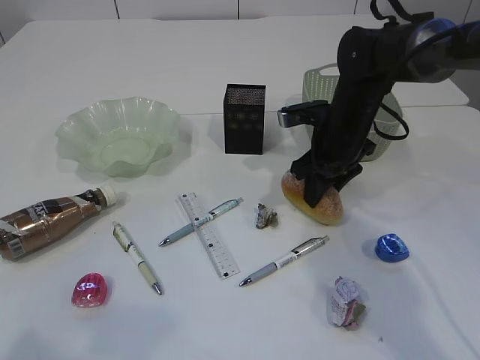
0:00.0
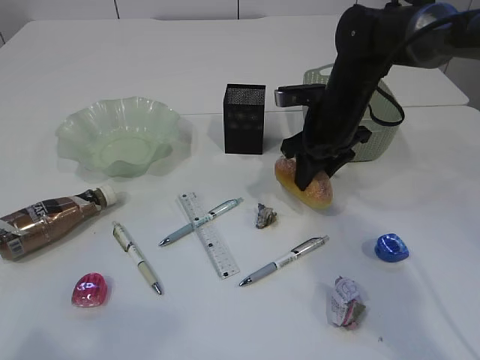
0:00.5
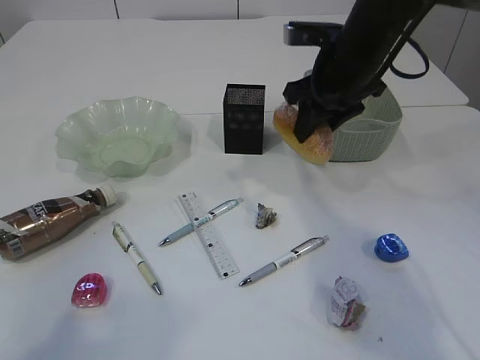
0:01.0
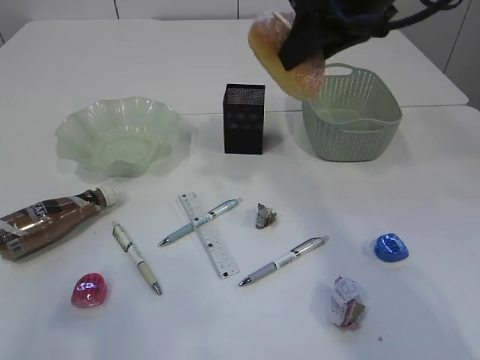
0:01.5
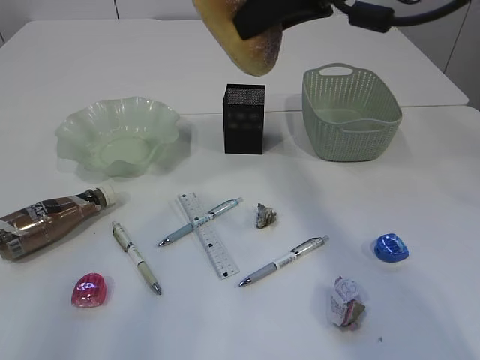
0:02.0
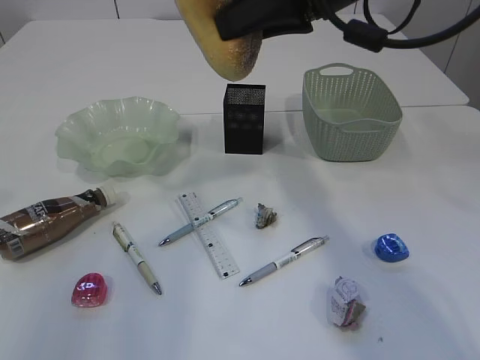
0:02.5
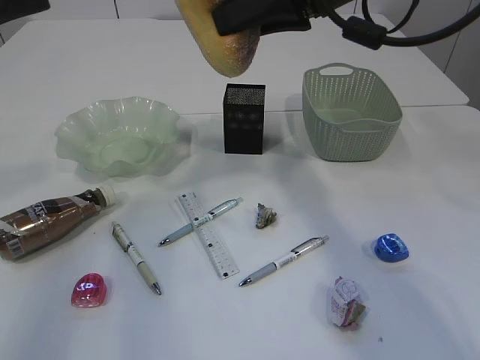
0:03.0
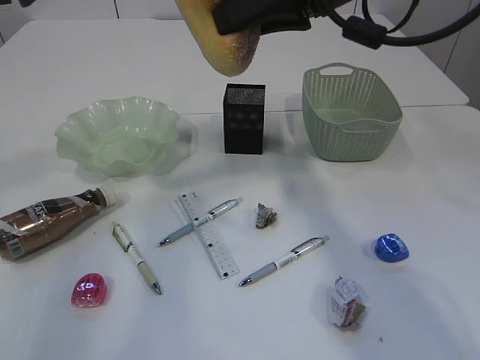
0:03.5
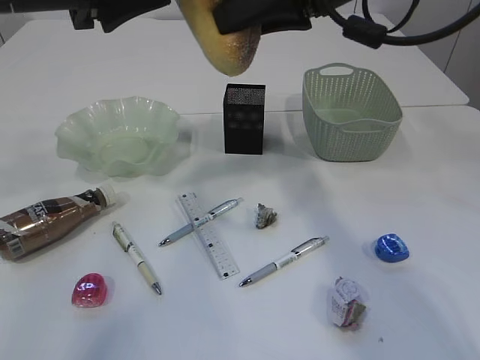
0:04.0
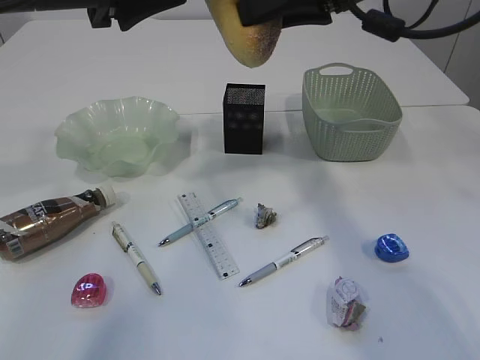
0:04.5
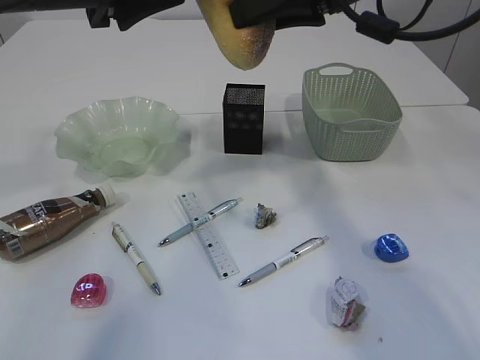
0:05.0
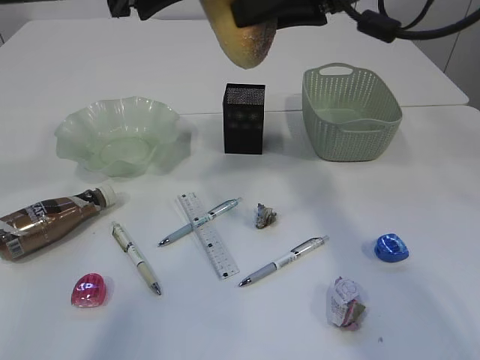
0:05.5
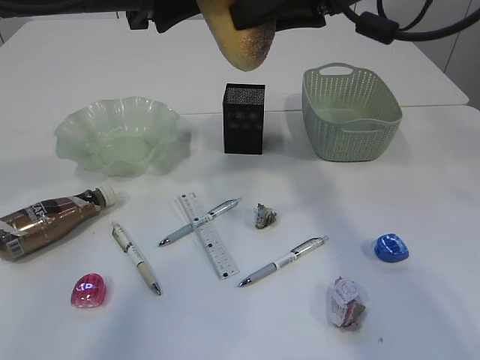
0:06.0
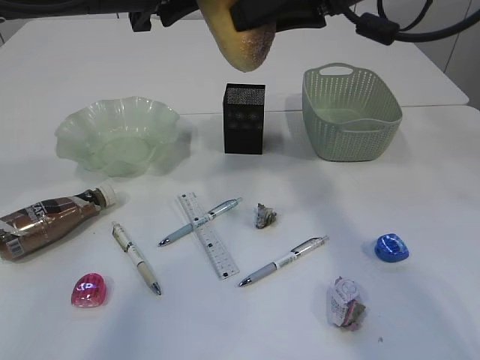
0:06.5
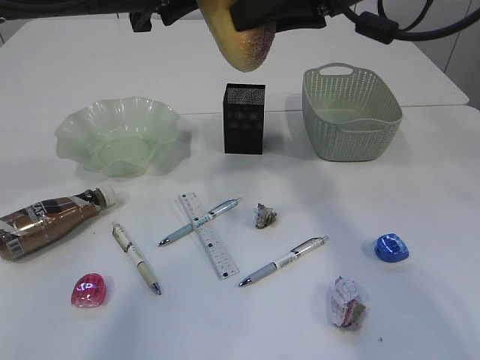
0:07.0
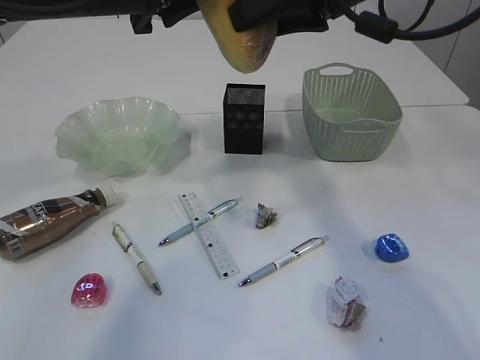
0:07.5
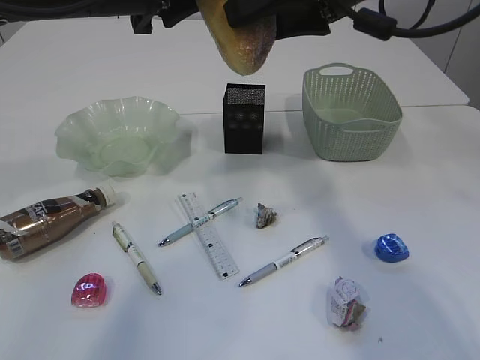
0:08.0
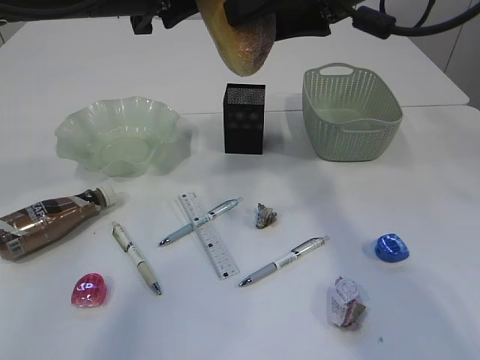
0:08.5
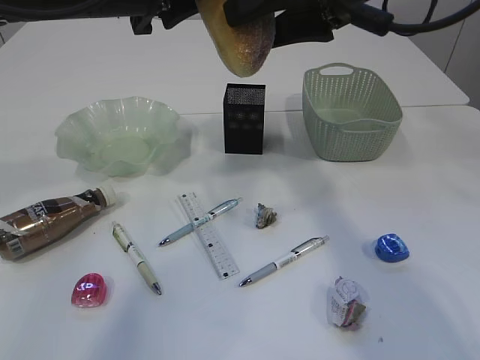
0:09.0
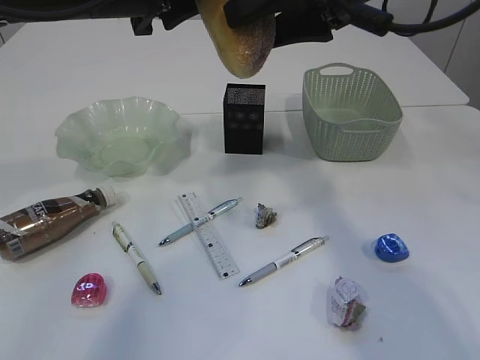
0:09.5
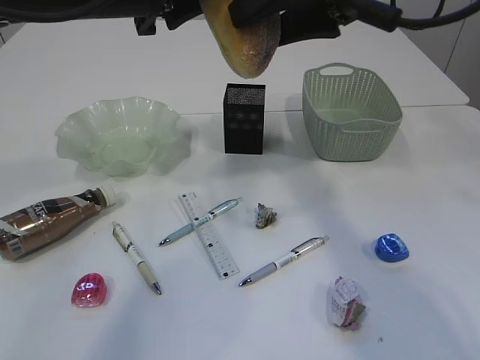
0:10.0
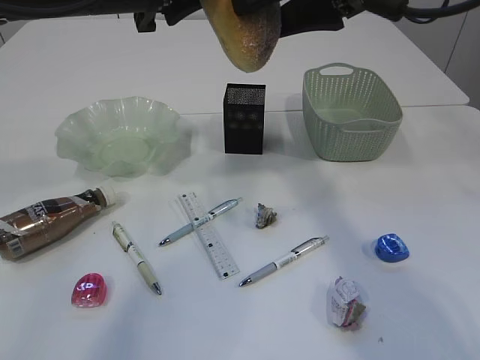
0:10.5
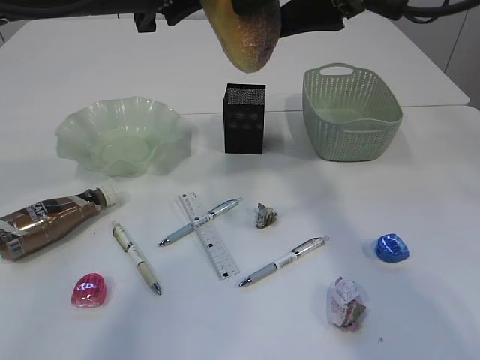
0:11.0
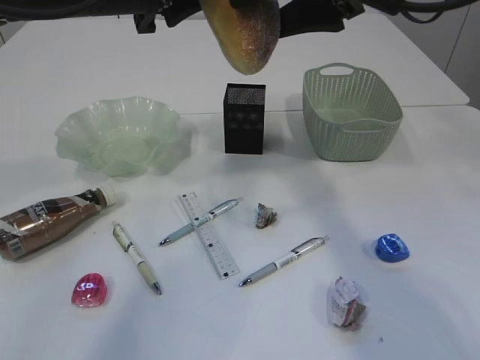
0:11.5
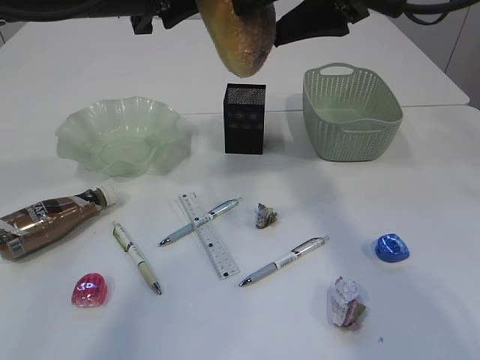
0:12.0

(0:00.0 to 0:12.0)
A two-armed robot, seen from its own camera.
0:00.0 - 0:02.0: The left gripper is displaced forward and upward by roughly 15 cm, while the right gripper is displaced upward by some 25 cm.
0:02.0 - 0:04.0: The left gripper travels forward and to the right by approximately 25 cm.
0:04.0 - 0:06.0: The left gripper changes place by roughly 5 cm.
0:06.0 - 0:08.0: The right gripper opens up. Meanwhile the left gripper closes its fingers.
0:08.0 - 0:10.0: The grippers stay close to where they were, moving slightly.
0:10.0 - 0:12.0: Both grippers stay about where they are.

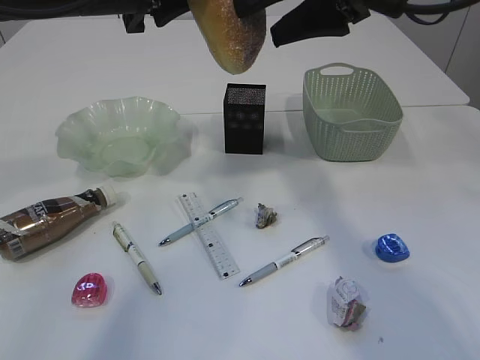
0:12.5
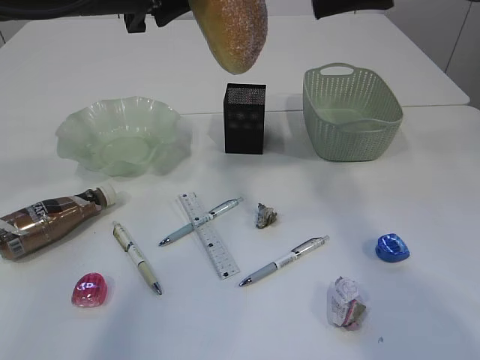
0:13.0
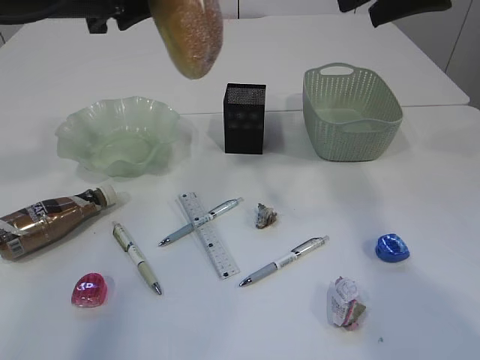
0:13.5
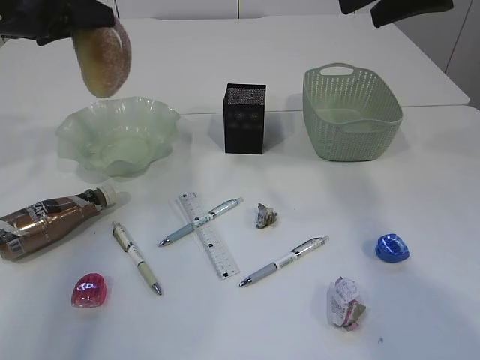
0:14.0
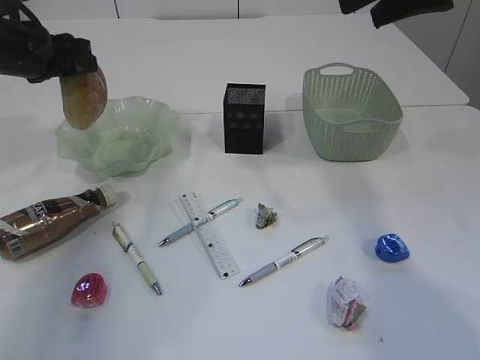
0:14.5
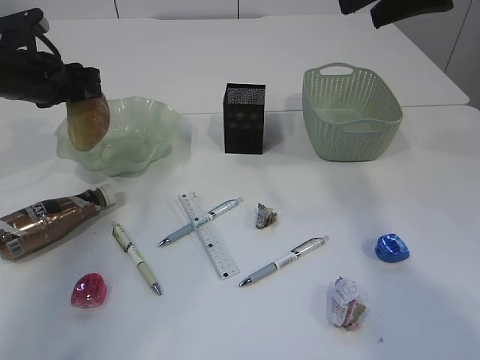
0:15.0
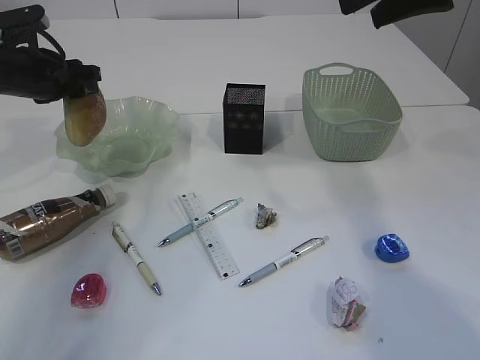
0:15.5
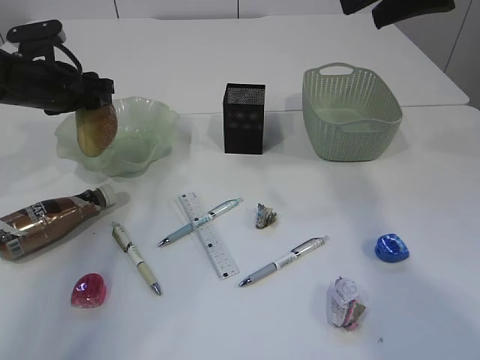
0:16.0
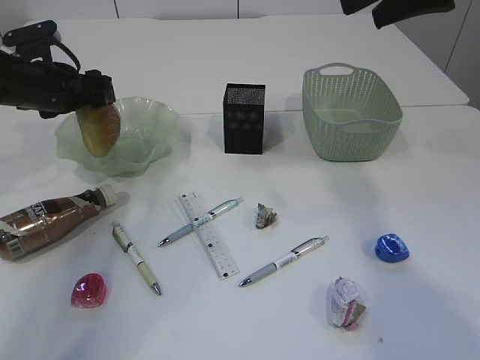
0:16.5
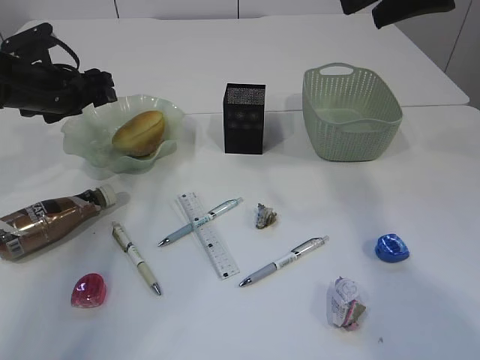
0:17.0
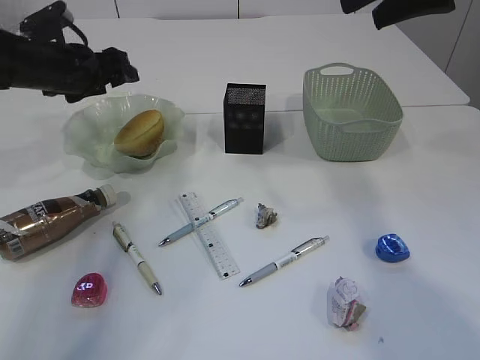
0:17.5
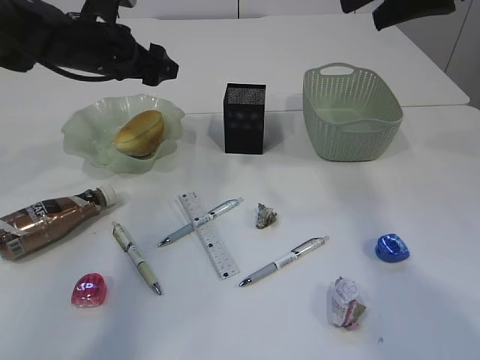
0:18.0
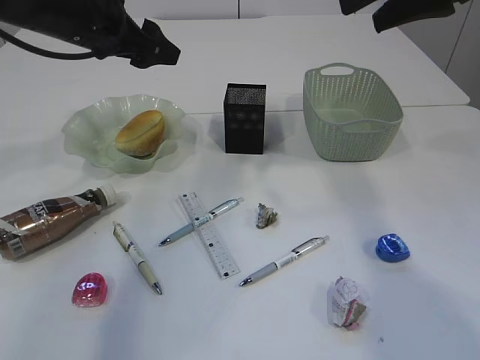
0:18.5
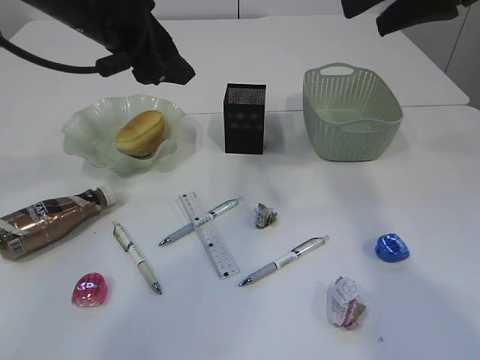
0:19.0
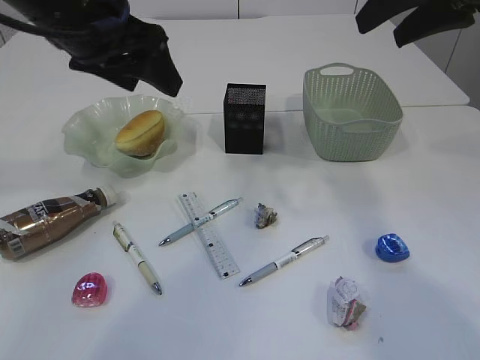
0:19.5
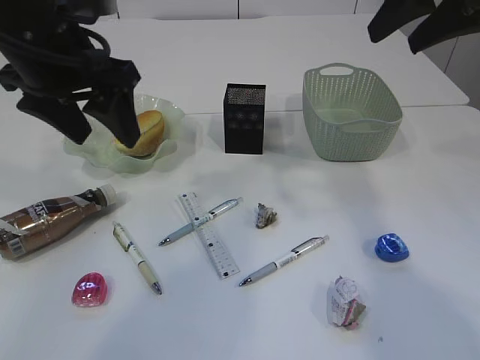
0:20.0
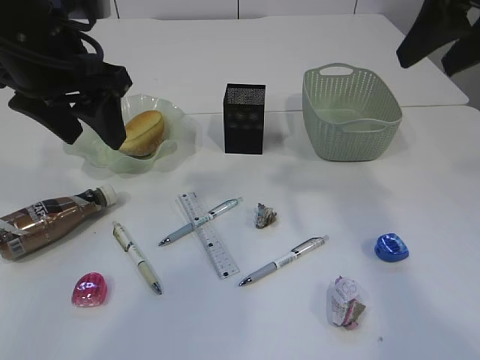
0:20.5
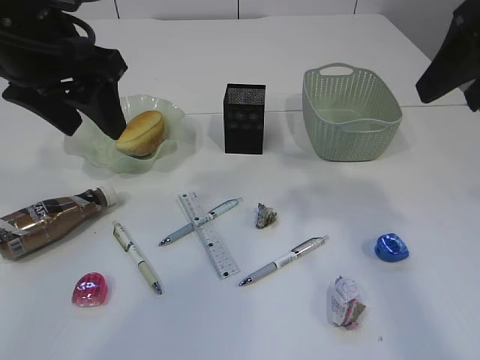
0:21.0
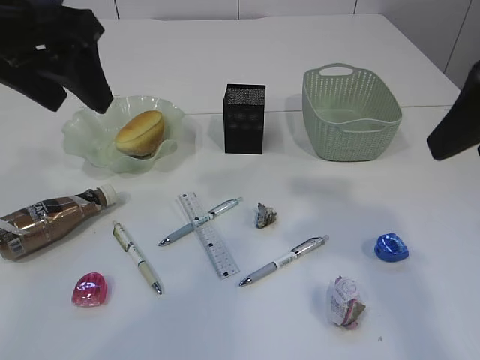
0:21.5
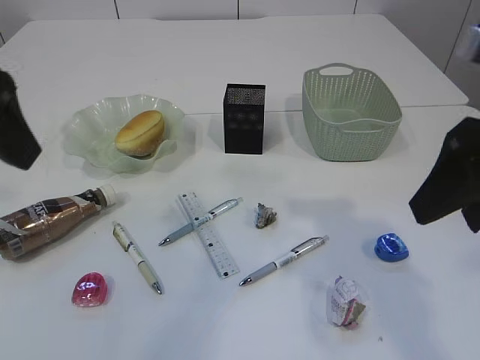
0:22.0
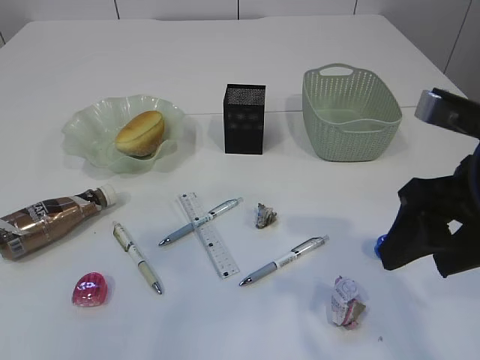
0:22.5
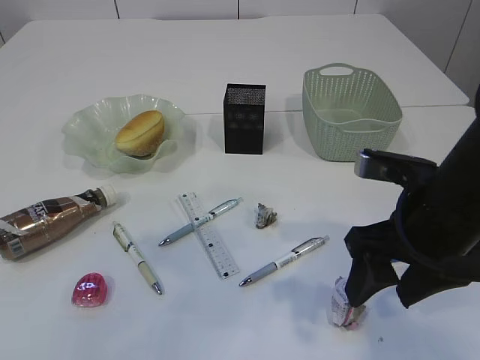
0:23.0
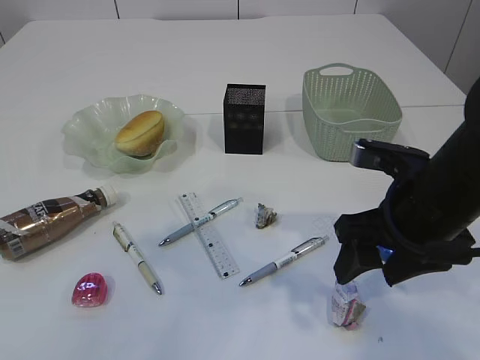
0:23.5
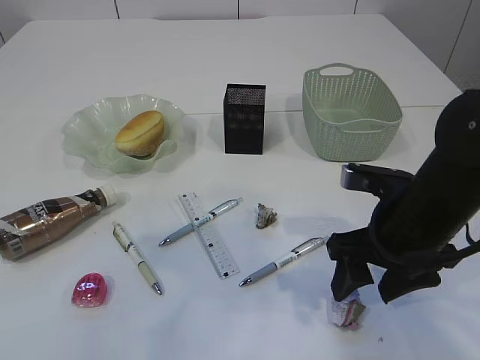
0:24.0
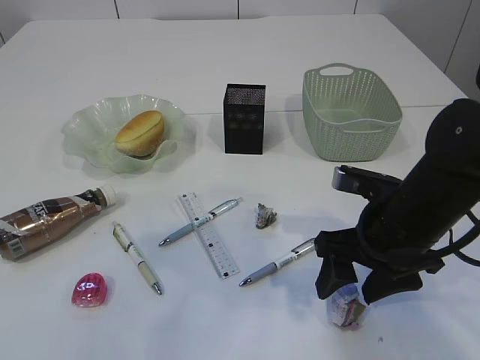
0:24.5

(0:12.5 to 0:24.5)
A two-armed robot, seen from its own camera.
Step, 0:13.5 - 0:17.5: place the bread in the plate.
0:12.5 - 0:14.5: The right gripper is displaced to the right by approximately 10 cm, while the left gripper travels to the left, downward and forward by approximately 20 cm.
0:14.5 - 0:16.5: The left gripper is displaced downward by roughly 5 cm, and opens its fingers.
0:16.5 - 0:18.5: The left gripper travels upward and to the right by about 15 cm.
0:18.5 - 0:20.5: The left gripper moves backward, approximately 10 cm.
0:20.5 - 0:22.5: The right gripper shifts approximately 15 cm backward, downward and to the left. Meanwhile the left gripper travels backward, to the left and upward by some 20 cm.
0:22.5 - 0:24.5: The right gripper is displaced downward and forward by approximately 15 cm.

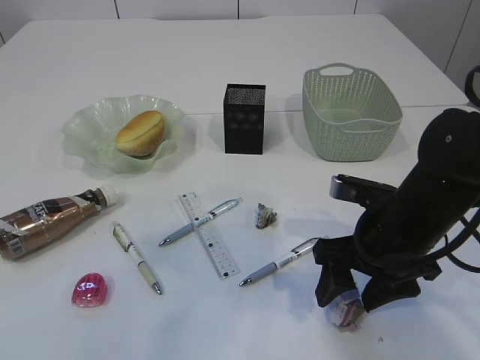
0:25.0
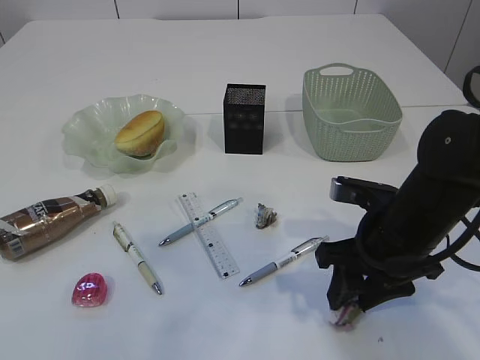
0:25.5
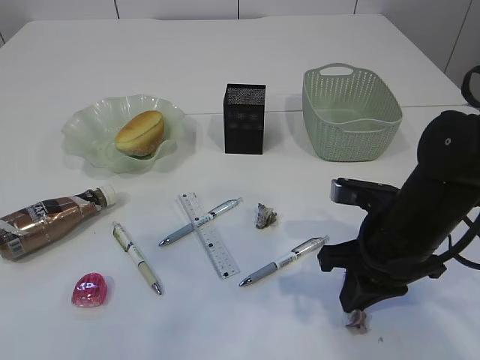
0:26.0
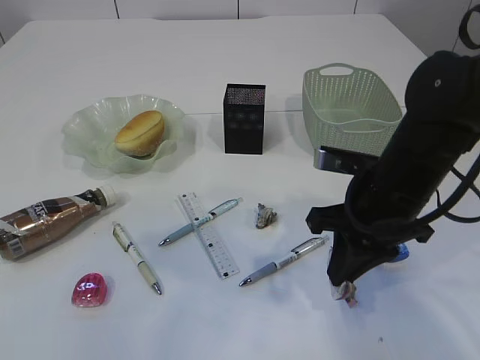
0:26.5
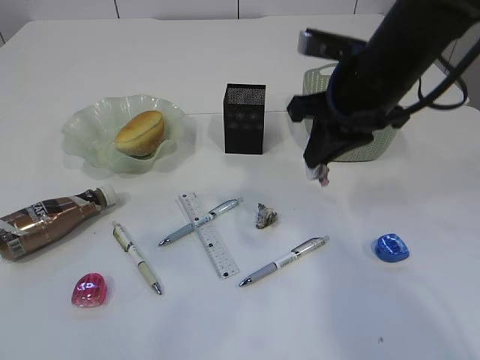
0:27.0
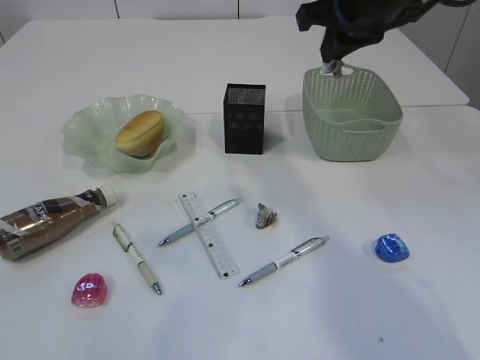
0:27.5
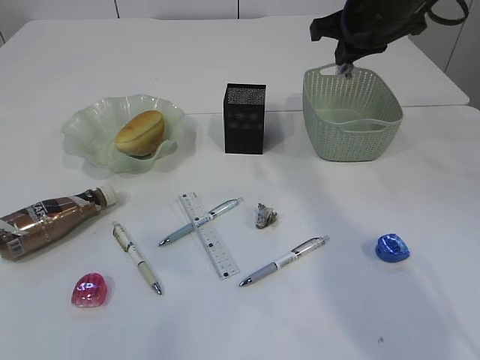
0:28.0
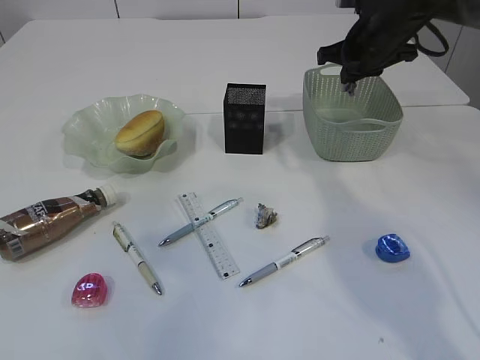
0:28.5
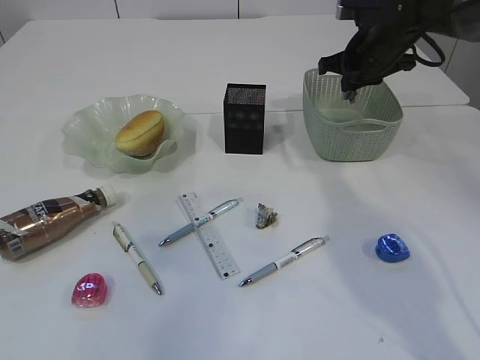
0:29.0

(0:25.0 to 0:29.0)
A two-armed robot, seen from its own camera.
0:25.0 - 0:27.0: The right gripper heads upward and forward, covering roughly 15 cm, and closes up.
0:27.0 - 0:29.0: The right gripper is displaced forward and to the right by some 20 cm.
